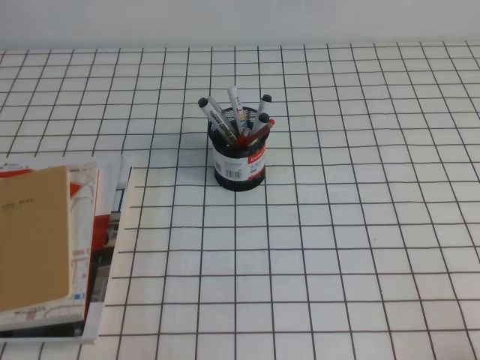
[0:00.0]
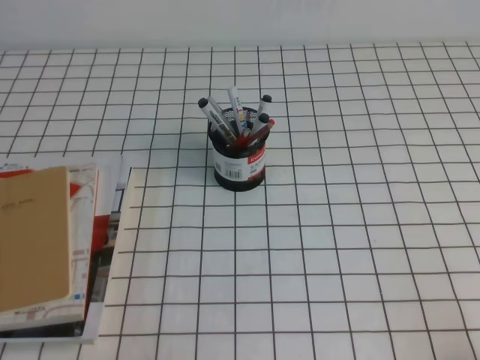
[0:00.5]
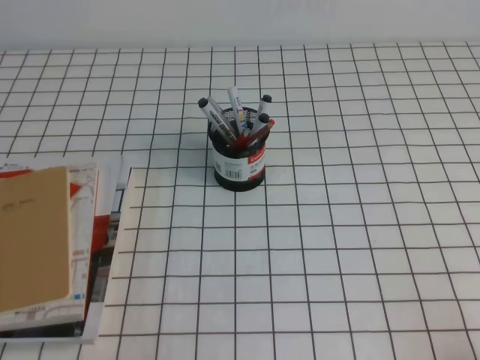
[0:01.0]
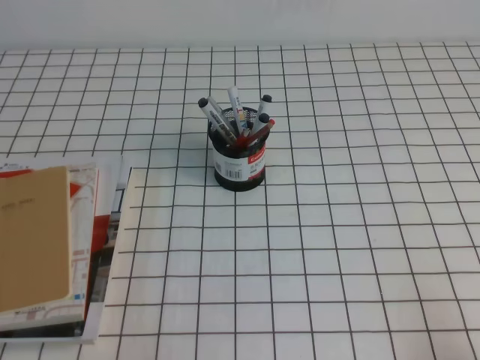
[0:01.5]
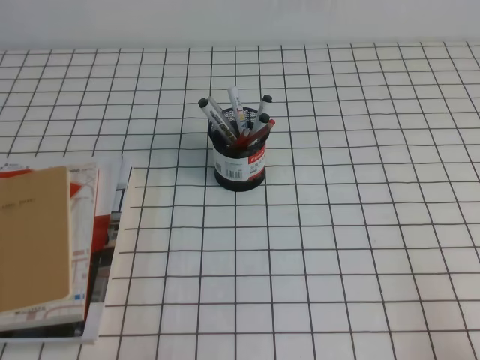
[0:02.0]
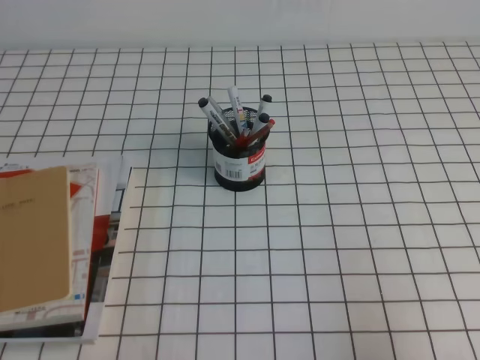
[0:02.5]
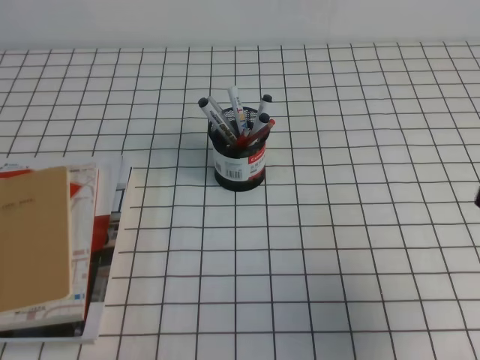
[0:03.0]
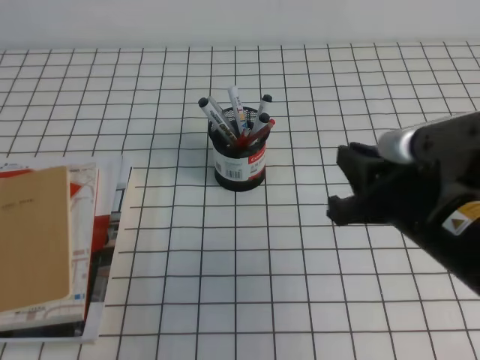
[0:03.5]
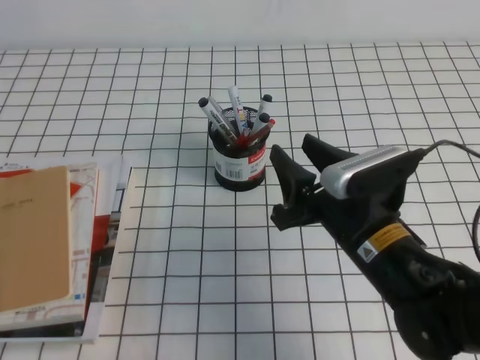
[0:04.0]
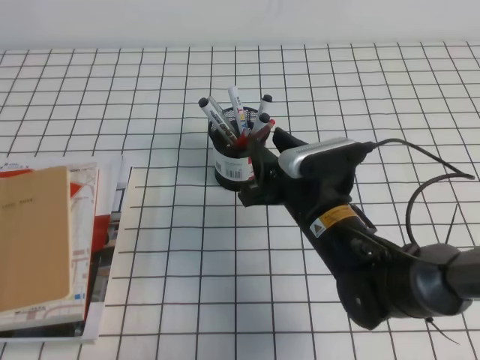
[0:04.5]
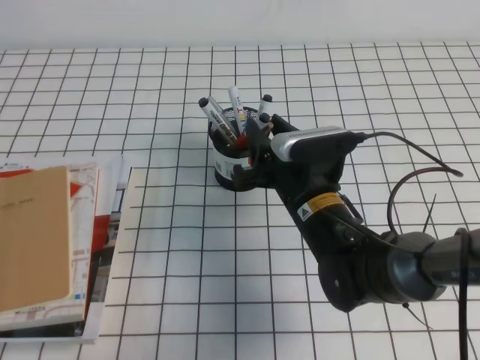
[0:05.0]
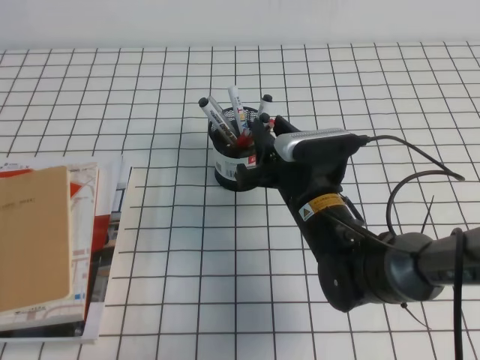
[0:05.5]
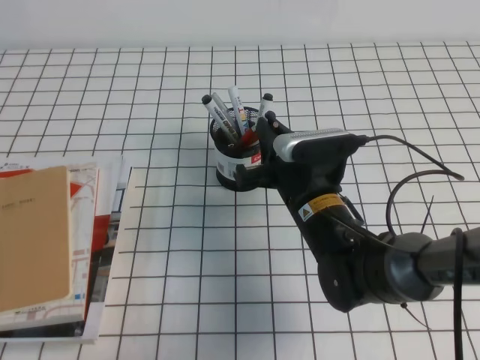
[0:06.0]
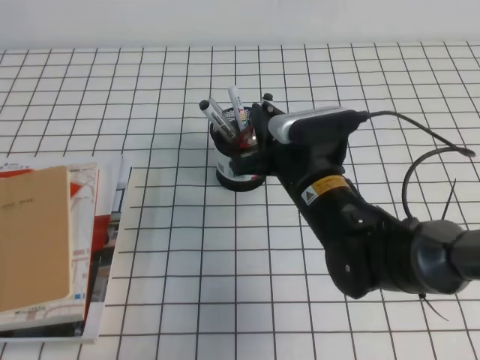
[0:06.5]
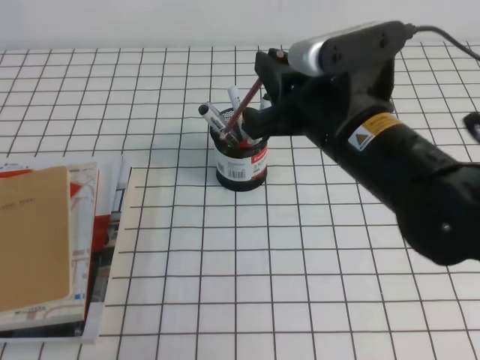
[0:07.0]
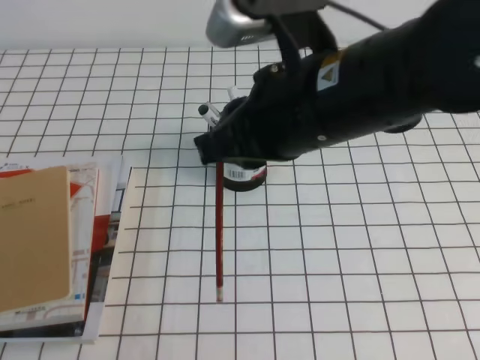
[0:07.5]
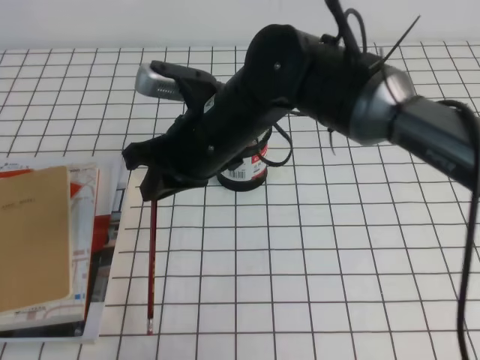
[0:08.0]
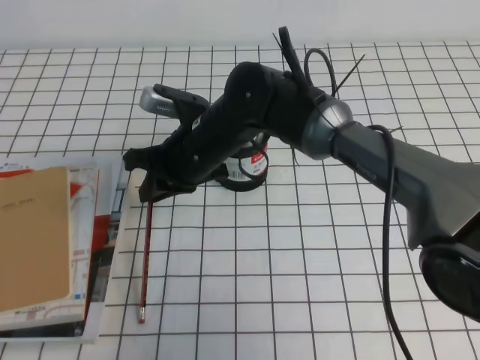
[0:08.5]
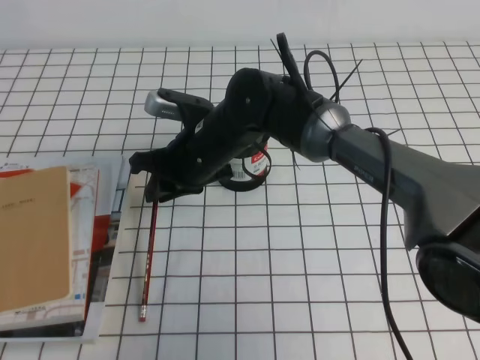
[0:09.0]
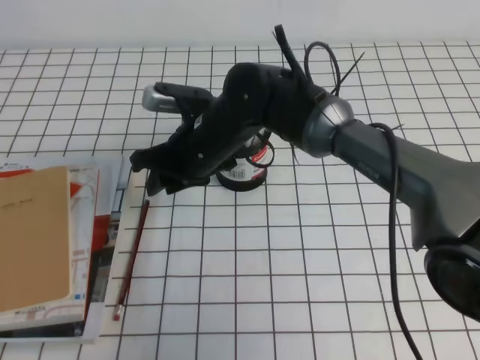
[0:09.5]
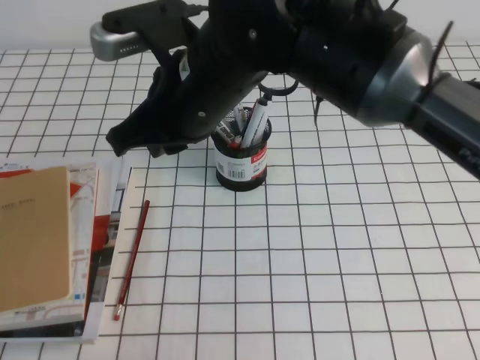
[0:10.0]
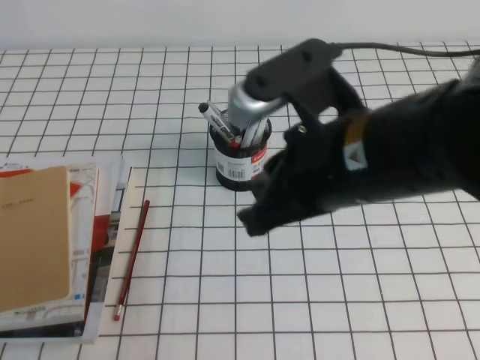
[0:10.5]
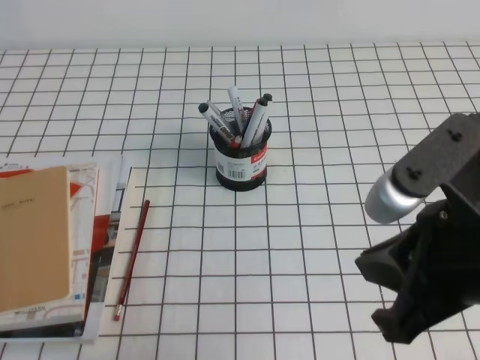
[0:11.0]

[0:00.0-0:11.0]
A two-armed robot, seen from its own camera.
0:02.0 to 0:03.5: The right gripper travels forward and to the left by about 20 cm.
0:03.5 to 0:05.5: The right gripper goes roughly 20 cm to the left, forward and downward, and opens.
0:05.5 to 0:07.5: The right gripper moves upward, roughly 20 cm, and closes its fingers.
0:07.5 to 0:09.0: The right gripper goes roughly 25 cm downward, forward and to the left.
0:09.0 to 0:11.0: The right gripper moves backward, to the right and upward, about 35 cm.

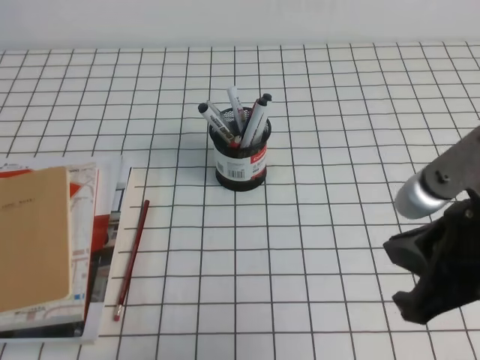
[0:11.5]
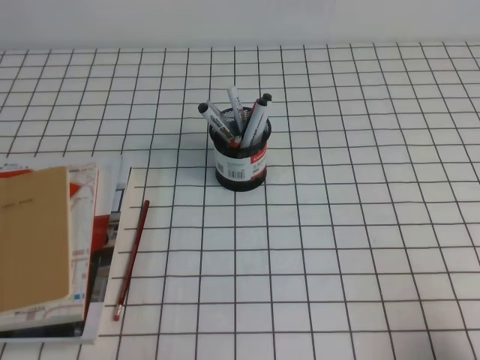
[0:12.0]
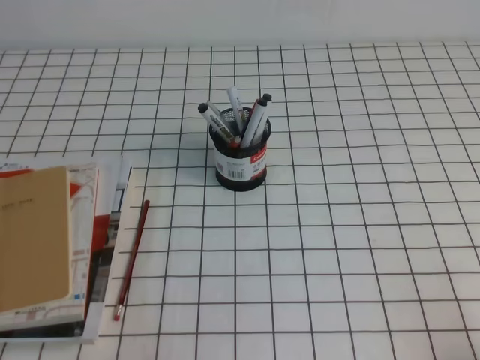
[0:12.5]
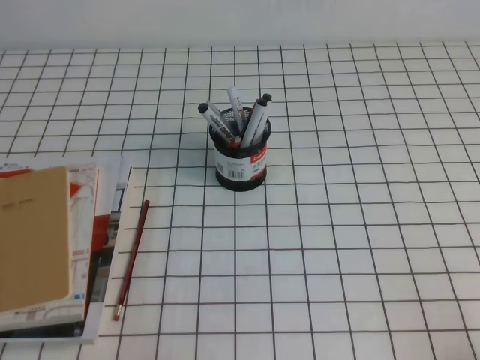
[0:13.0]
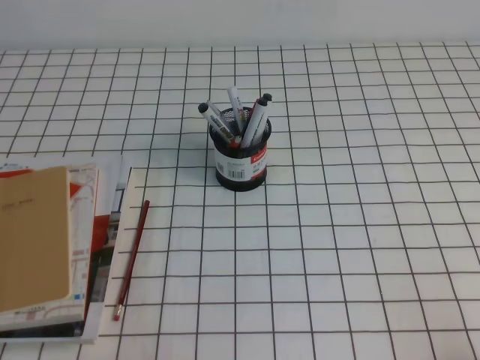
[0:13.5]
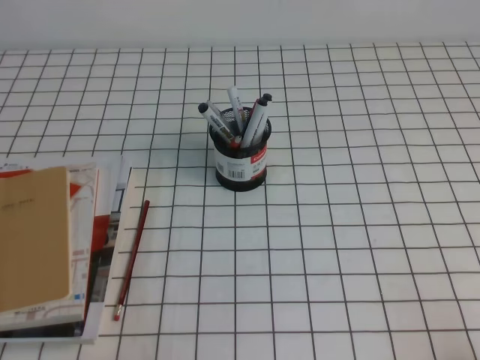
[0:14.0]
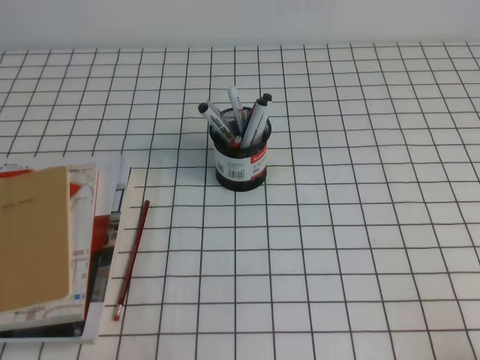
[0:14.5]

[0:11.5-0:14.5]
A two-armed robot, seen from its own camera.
Step, 0:11.5 to 0:14.5: Pick up the pen from the pen holder.
0:11.5 to 0:13.0: The right gripper shifts approximately 20 cm downward, to the right and backward.
0:13.0 to 0:14.5: The two grippers keep their place.

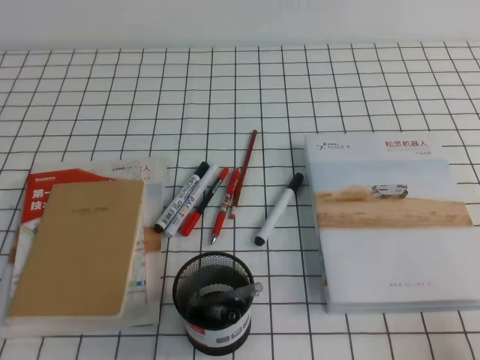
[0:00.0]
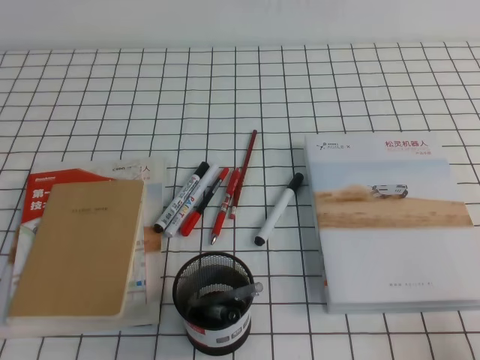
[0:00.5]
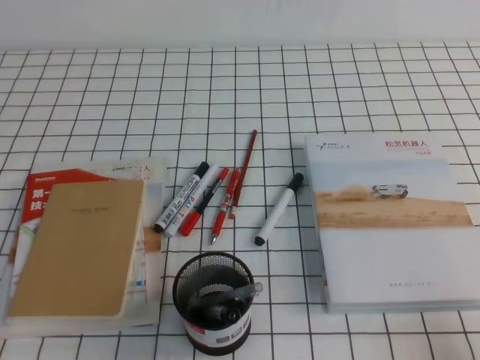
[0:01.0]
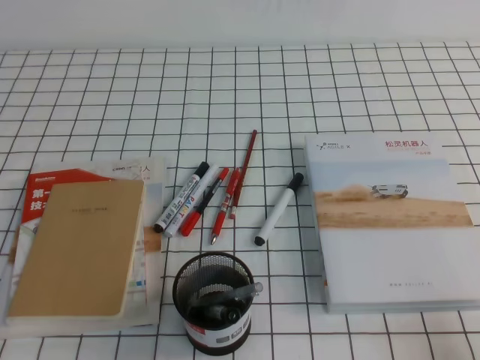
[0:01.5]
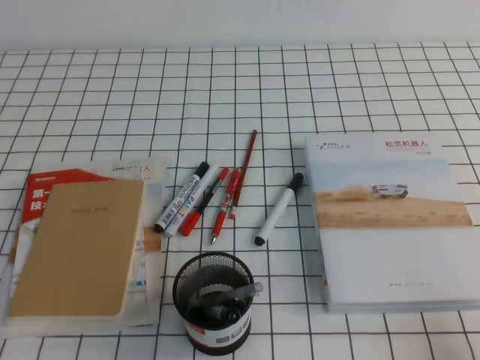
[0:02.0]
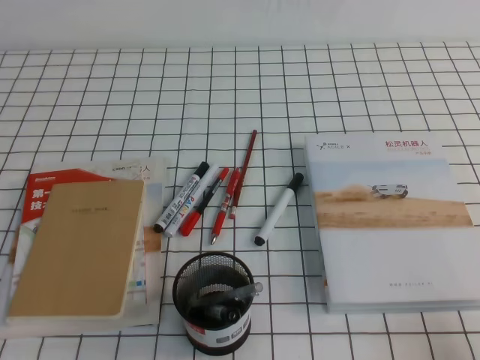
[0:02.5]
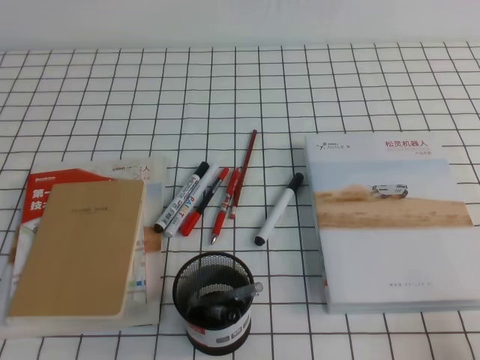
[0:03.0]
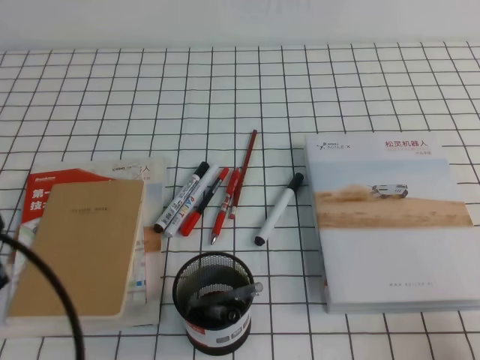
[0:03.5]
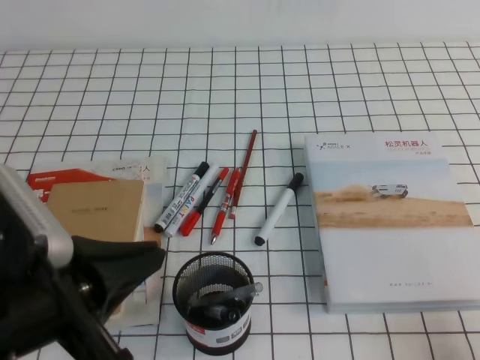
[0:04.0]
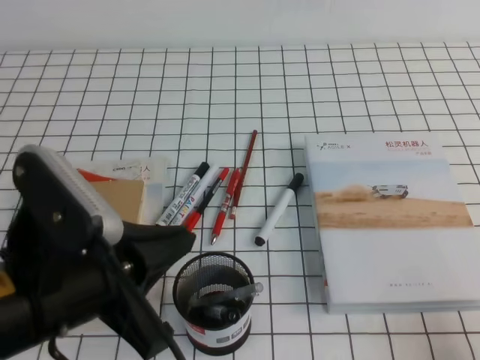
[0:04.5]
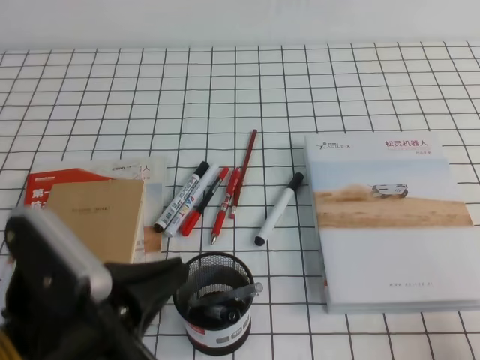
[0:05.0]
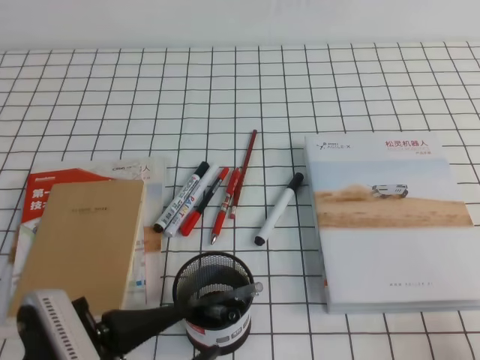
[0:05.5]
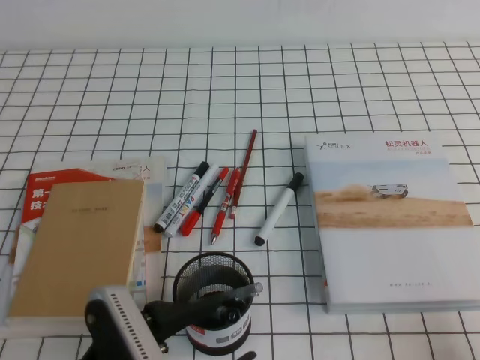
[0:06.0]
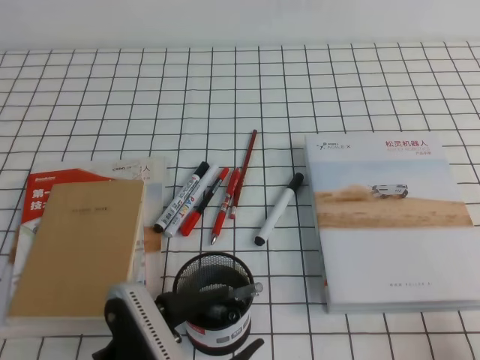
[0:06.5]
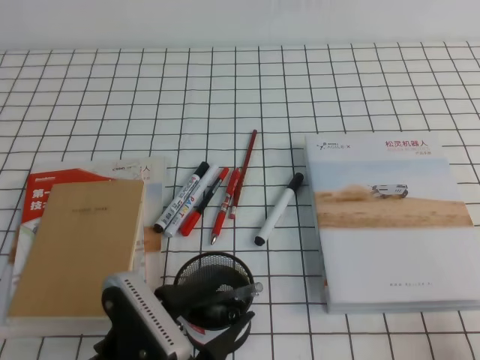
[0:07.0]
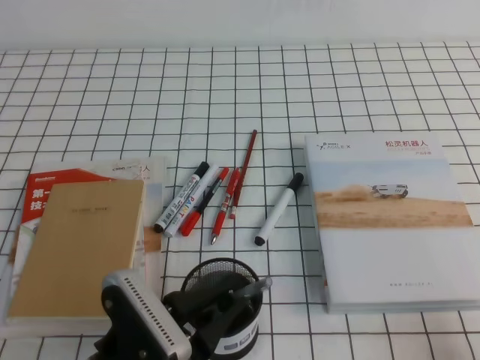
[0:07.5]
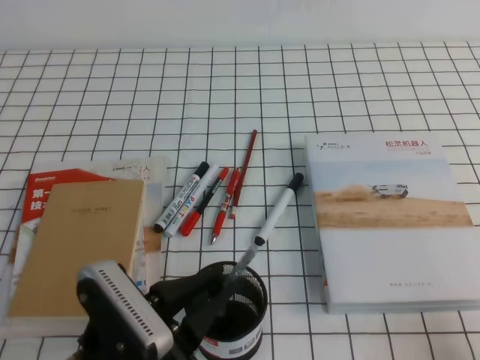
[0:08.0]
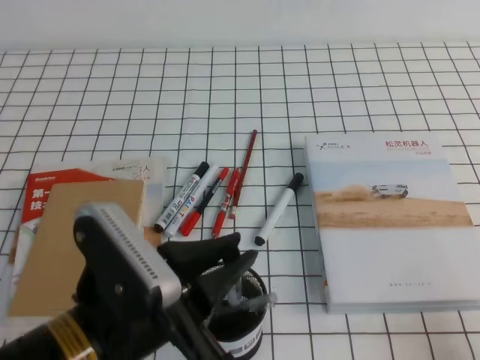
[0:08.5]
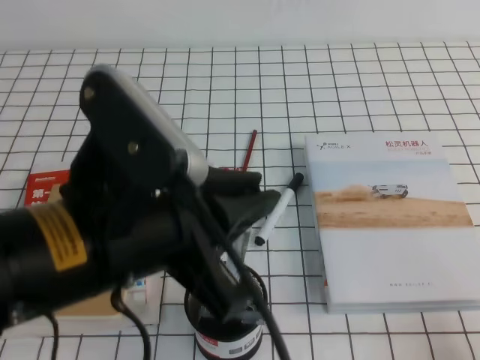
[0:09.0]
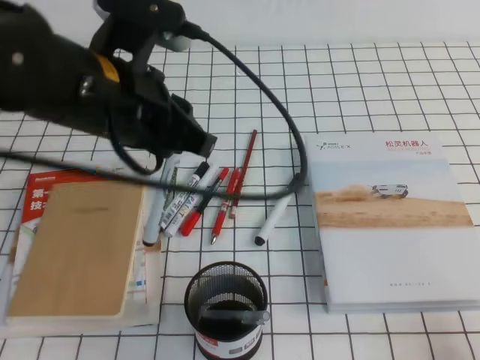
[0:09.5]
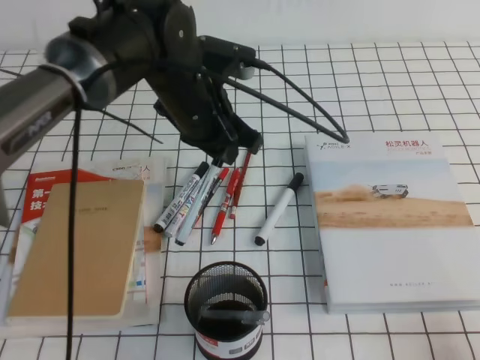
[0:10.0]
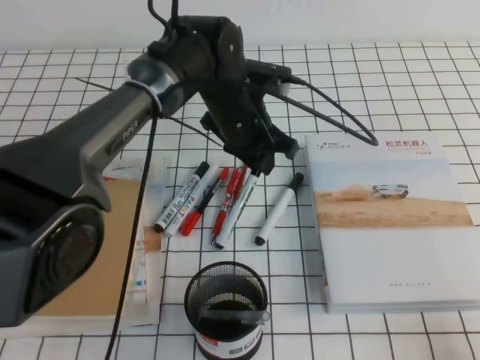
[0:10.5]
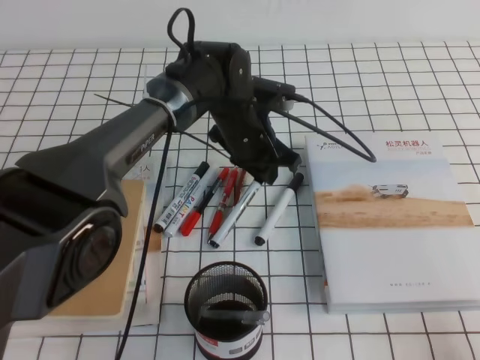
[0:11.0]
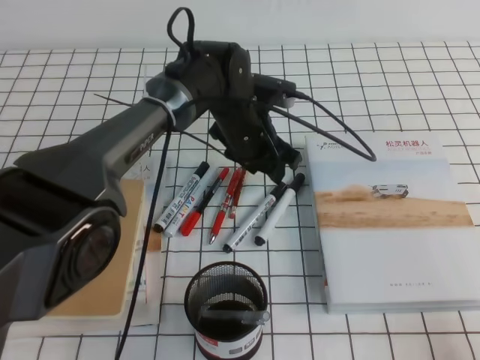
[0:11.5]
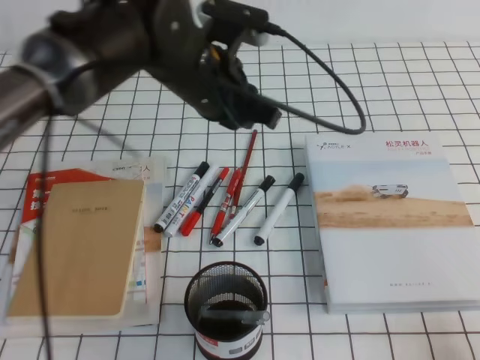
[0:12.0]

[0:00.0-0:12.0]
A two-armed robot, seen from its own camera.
0:00.0 to 0:02.0: Both grippers stay about where they are.
0:02.0 to 0:04.0: The left gripper is displaced upward, to the right and forward by some 20 cm.
0:04.0 to 0:06.0: The left gripper shifts about 10 cm downward, and opens up.
0:06.0 to 0:08.0: The left gripper closes up.
0:08.0 to 0:10.0: The left gripper travels forward and upward by about 25 cm.
0:10.0 to 0:12.0: The left gripper moves approximately 10 cm downward and comes back, and opens, then closes again.
